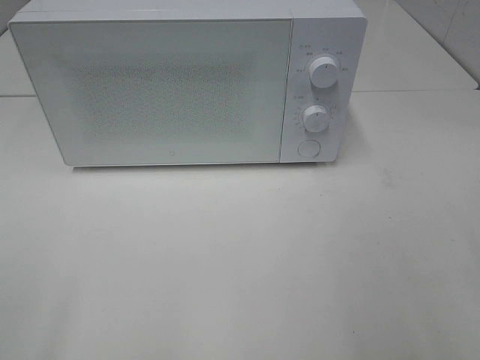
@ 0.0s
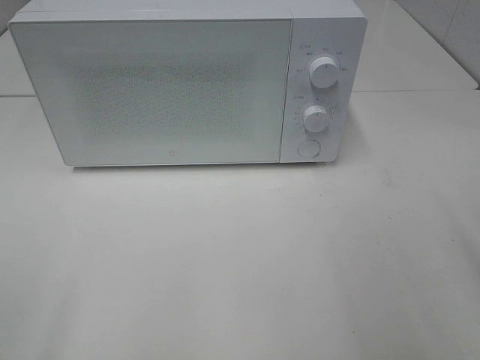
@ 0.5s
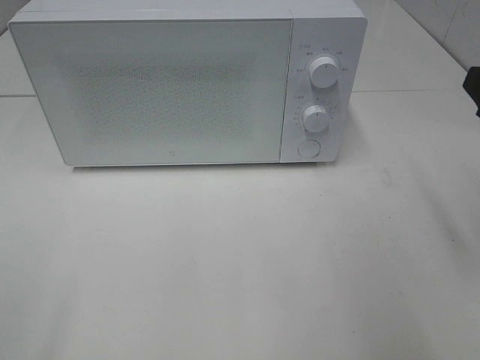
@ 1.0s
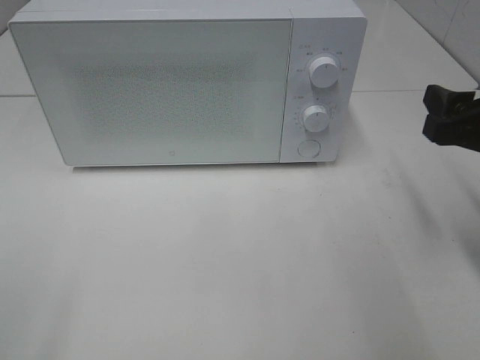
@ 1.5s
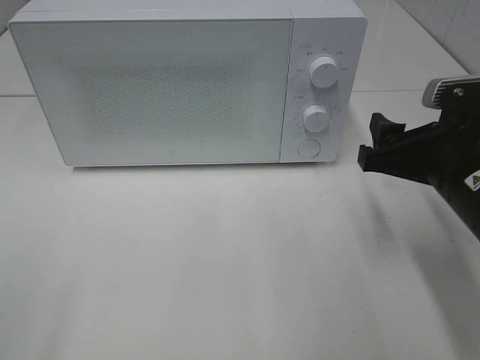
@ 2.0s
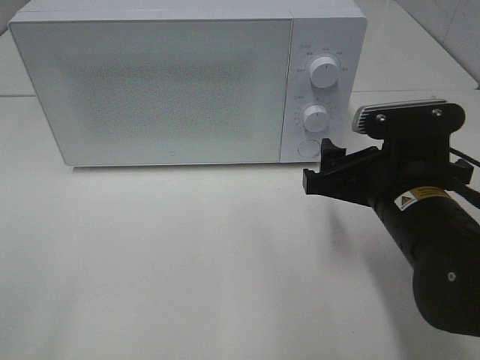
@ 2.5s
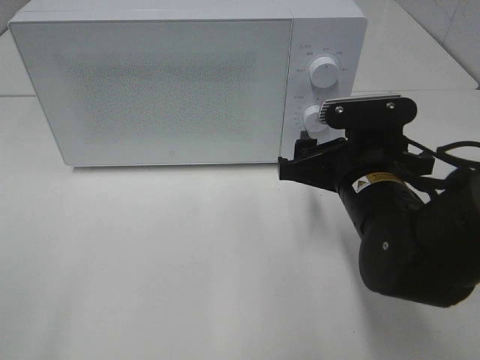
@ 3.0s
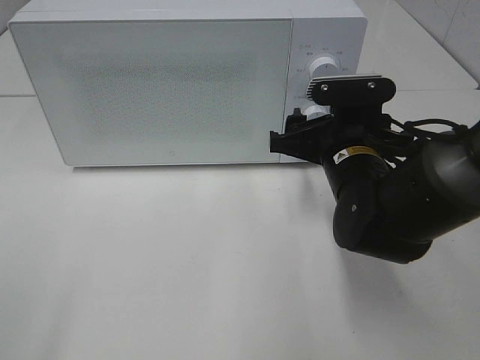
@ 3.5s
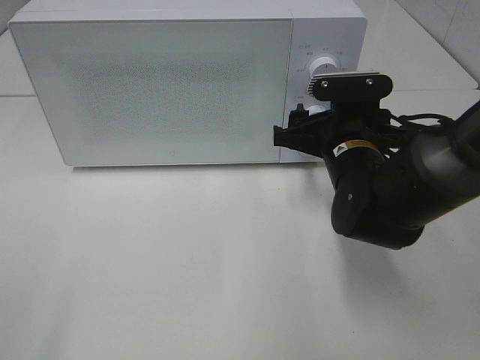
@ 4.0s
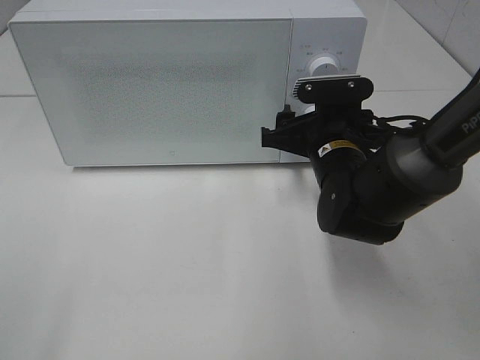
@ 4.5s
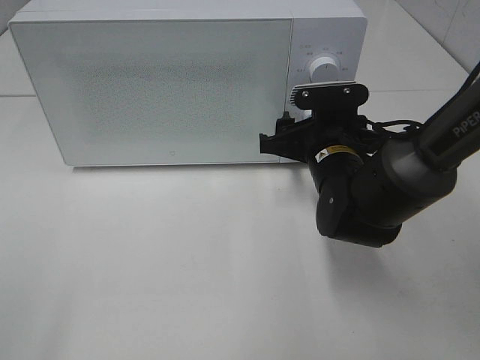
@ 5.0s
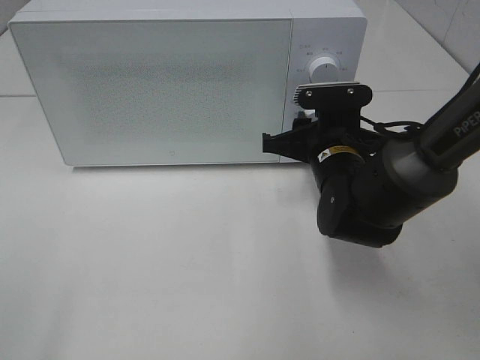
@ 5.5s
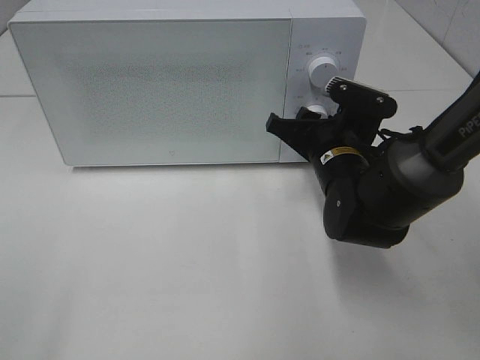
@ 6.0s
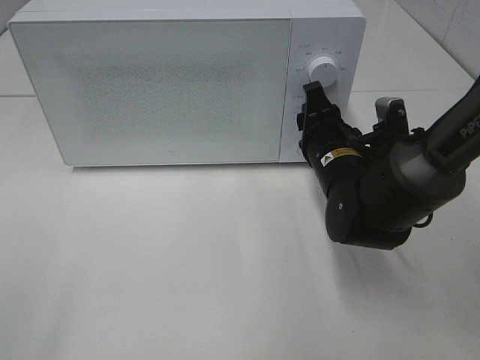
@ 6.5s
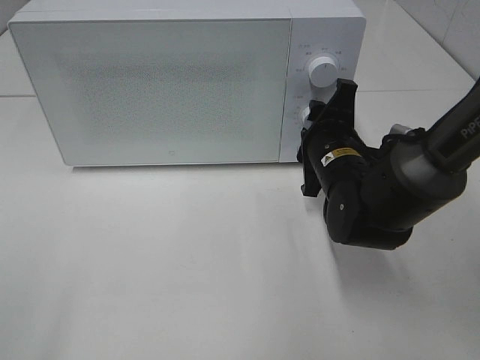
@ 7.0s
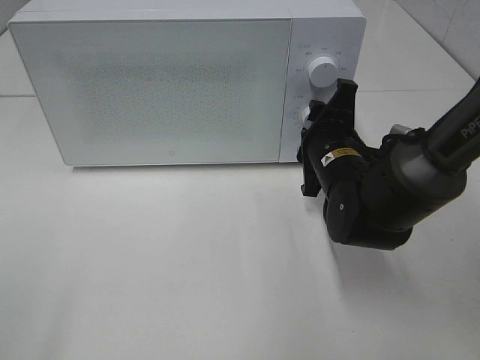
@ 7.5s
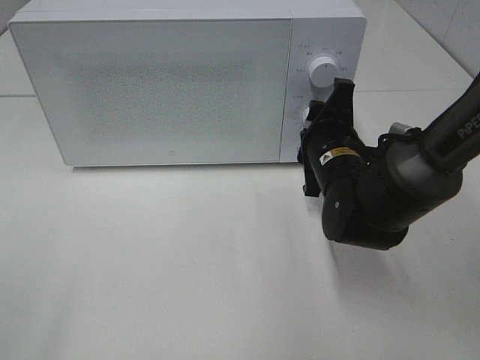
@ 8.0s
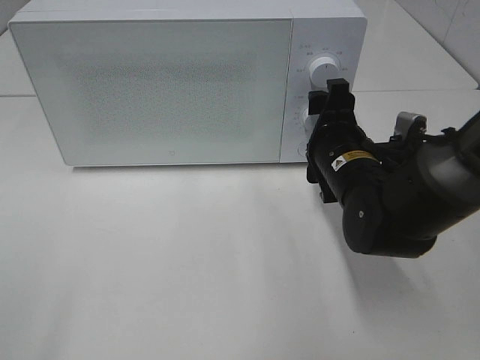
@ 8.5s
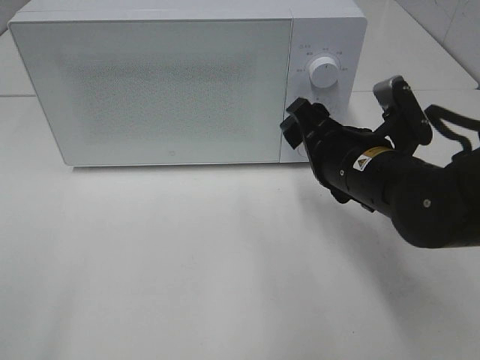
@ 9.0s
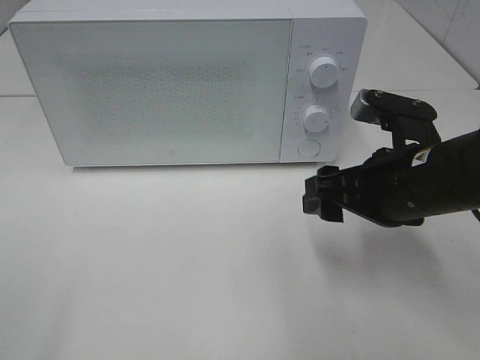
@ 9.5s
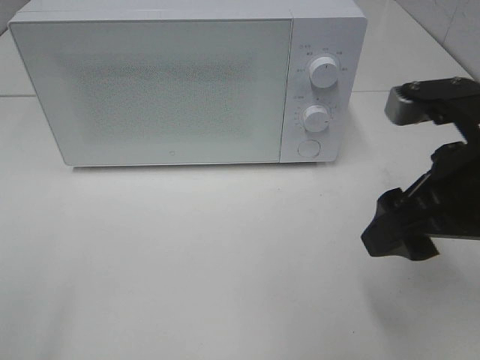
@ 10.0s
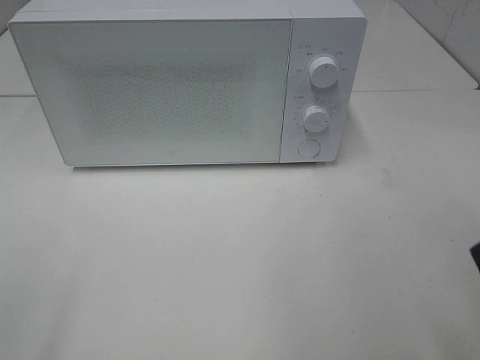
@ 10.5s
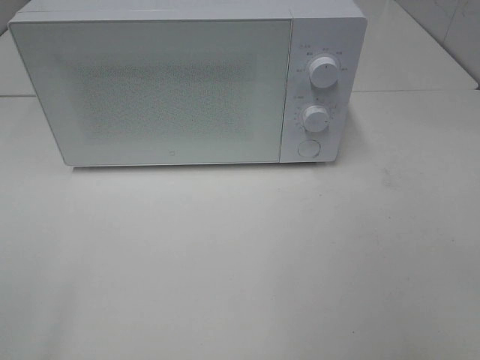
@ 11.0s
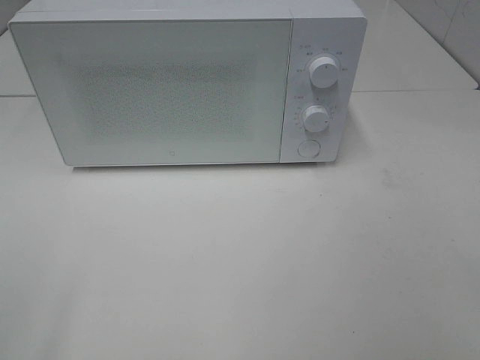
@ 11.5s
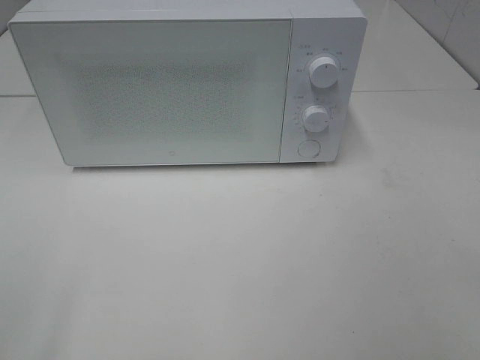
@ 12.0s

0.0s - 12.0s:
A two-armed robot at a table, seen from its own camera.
Task of the whole recording: Heat the burger.
Step, 0.0s - 8.0s: Right hand: twist timer button.
0.0s - 2.0s: The right gripper goes approximately 20 cm forward, downward and to the left.
2.0s - 4.0s: The right gripper heads forward and to the left, covering roughly 10 cm.
4.0s - 6.0s: The right gripper closes up.
8.0s - 10.0s: The right gripper goes approximately 20 cm backward, upward and to the right.
10.0s - 12.0s: The right gripper shifts about 20 cm backward and to the right.

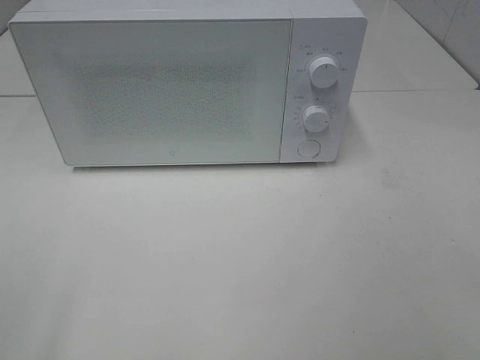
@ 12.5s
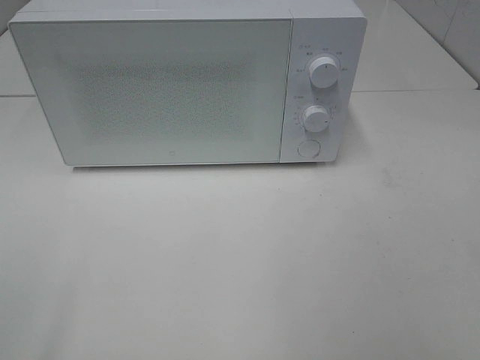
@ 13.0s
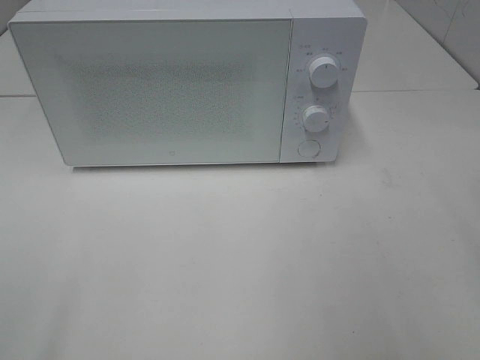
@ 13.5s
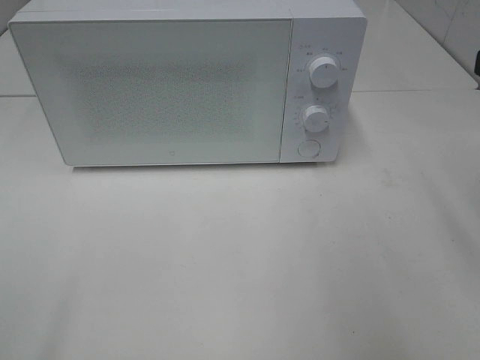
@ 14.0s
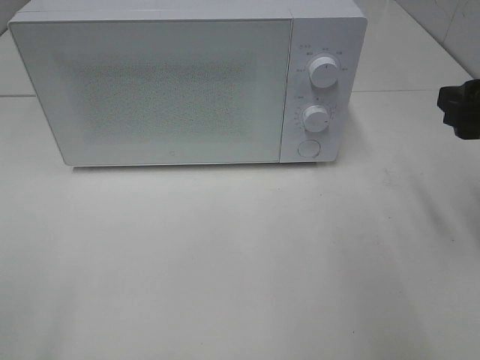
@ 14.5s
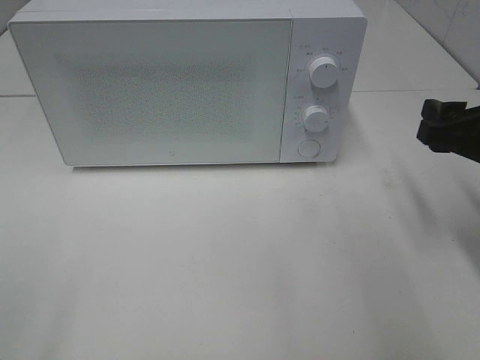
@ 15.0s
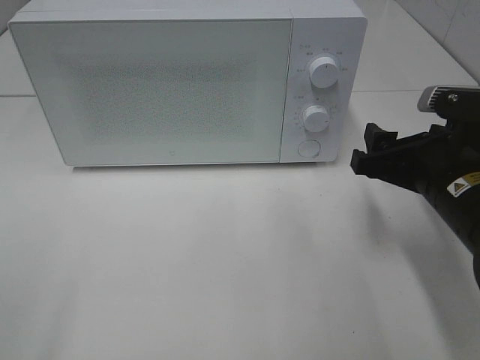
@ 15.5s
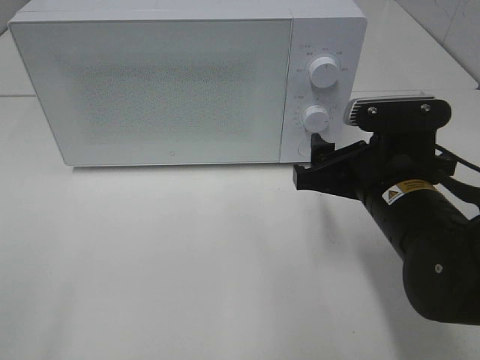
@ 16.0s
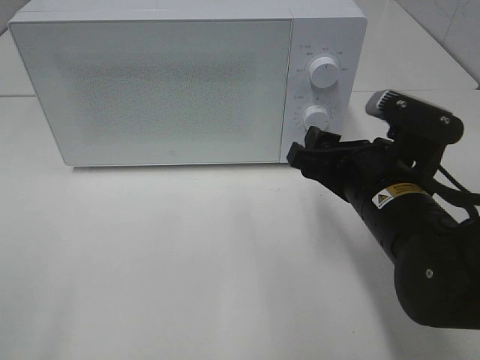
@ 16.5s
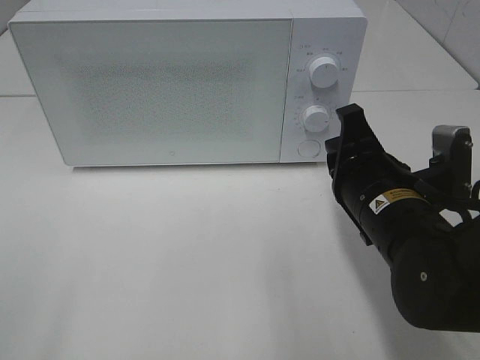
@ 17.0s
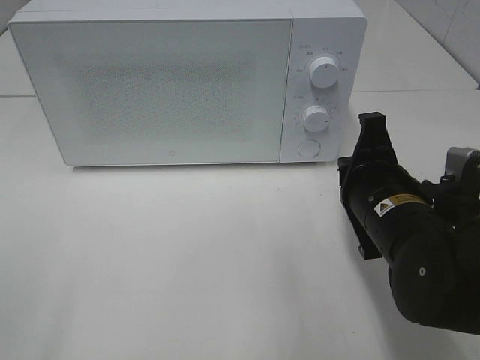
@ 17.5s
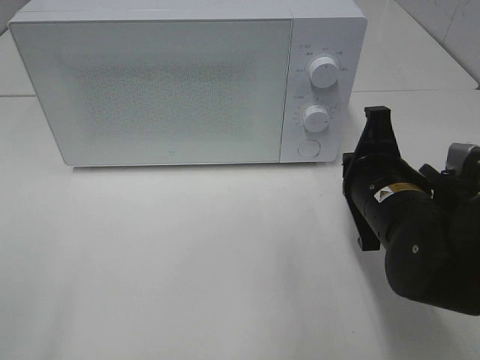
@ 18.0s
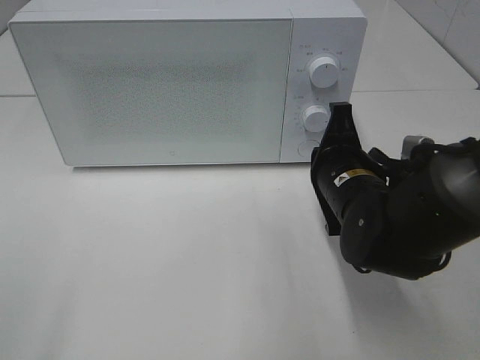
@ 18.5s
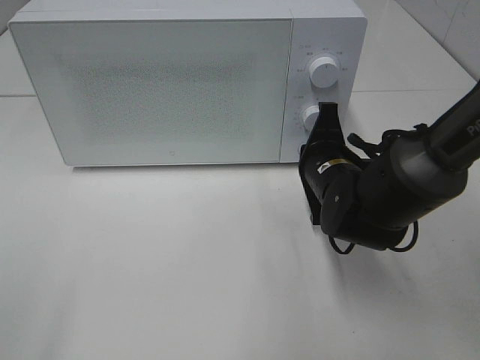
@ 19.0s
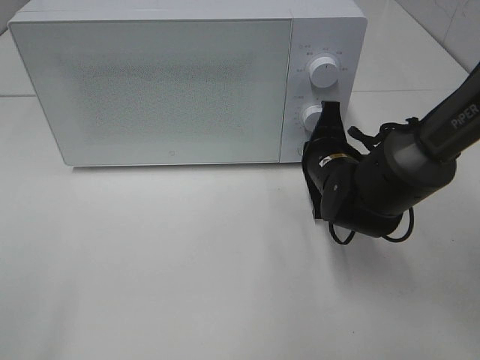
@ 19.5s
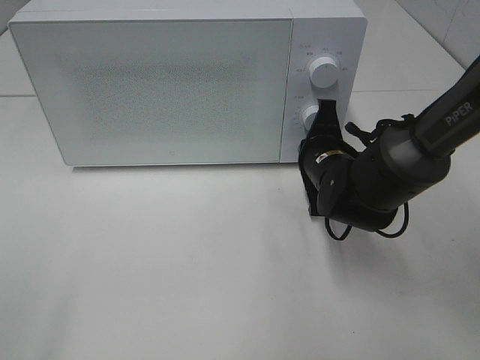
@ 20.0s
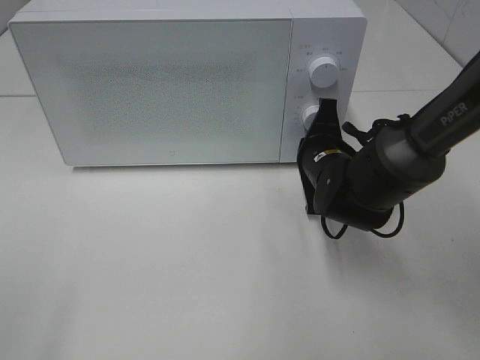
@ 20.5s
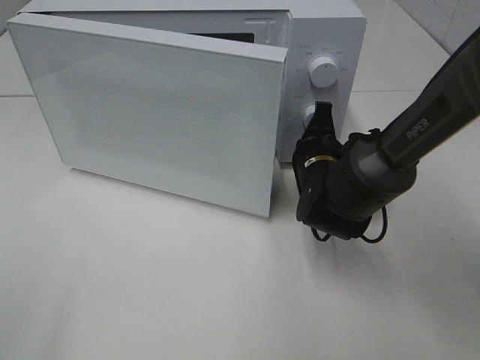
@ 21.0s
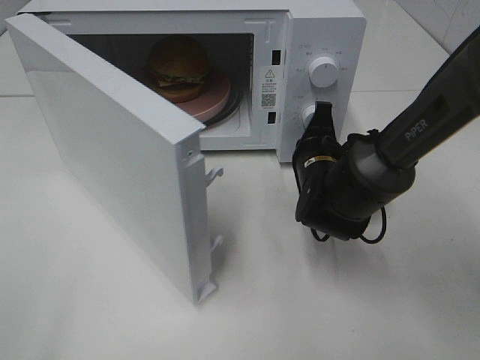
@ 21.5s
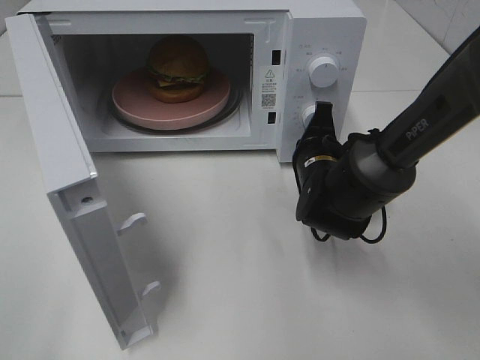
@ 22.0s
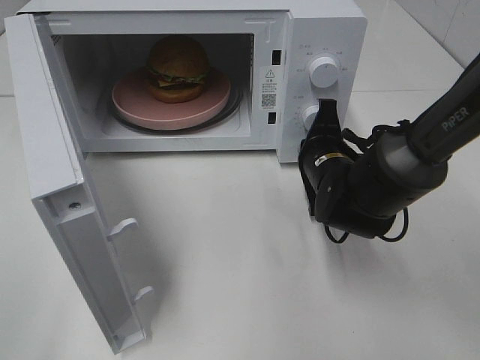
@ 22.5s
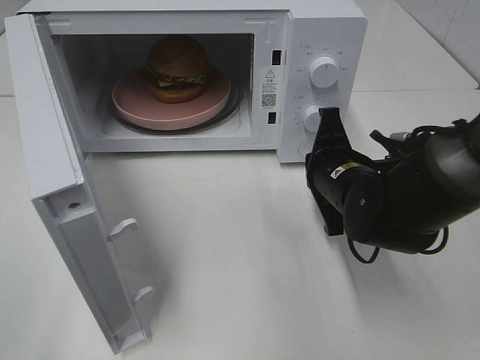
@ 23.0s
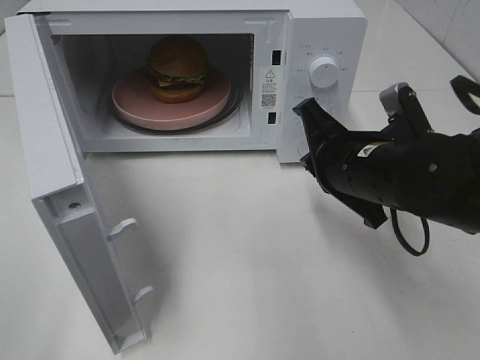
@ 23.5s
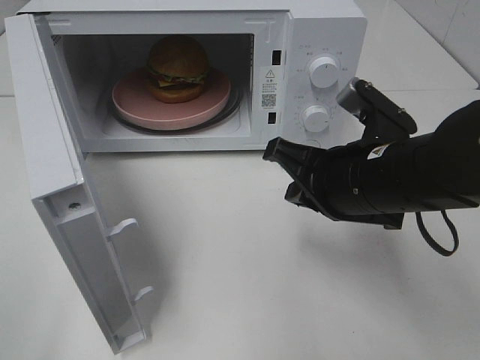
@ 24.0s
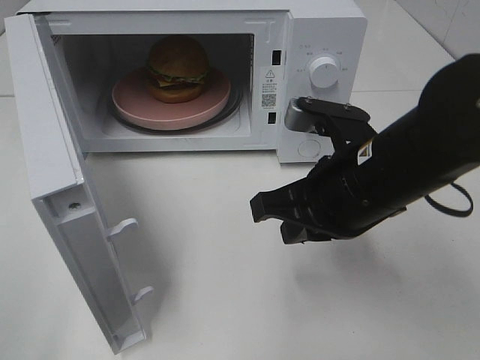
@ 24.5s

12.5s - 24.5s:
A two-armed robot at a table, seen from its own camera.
Task of the whole recording: Heat the burger.
Step, 12.5s - 22.5s: Right hand: press the switch.
12.5s - 14.5s: The right gripper moves forward, about 20 cm.
14.5s - 16.5s: The right gripper shifts some 15 cm to the left and downward.
16.5s - 18.5s: The right gripper travels forward by some 5 cm, and closes.
18.5s - 20.5s: The right gripper moves forward, approximately 5 cm.
22.5s - 24.5s: The right gripper moves backward and upward, some 15 cm.

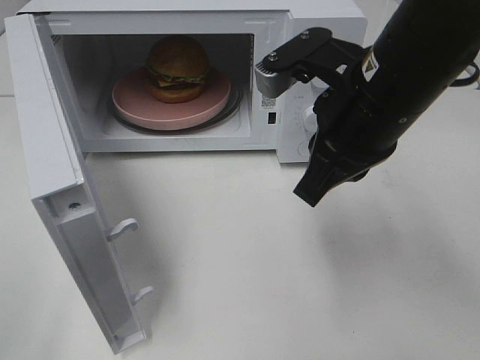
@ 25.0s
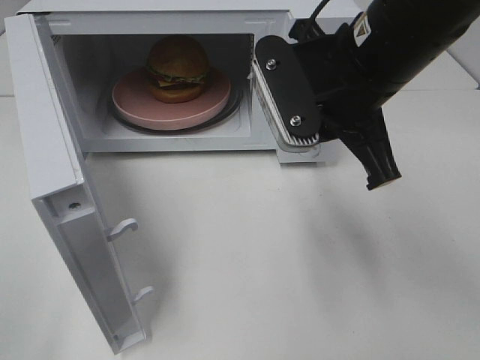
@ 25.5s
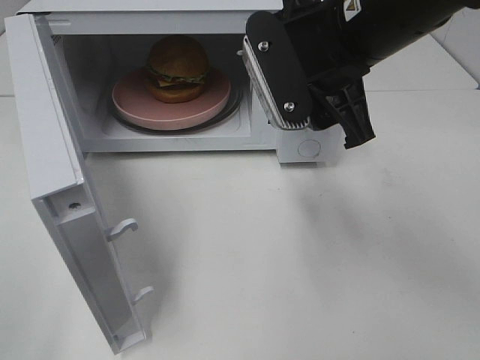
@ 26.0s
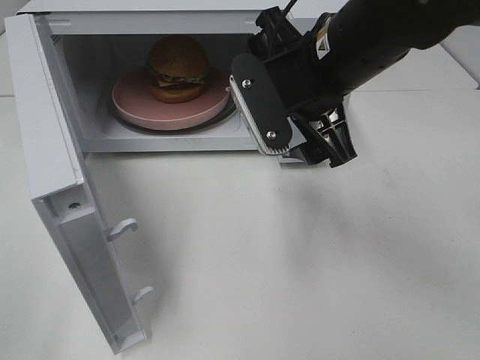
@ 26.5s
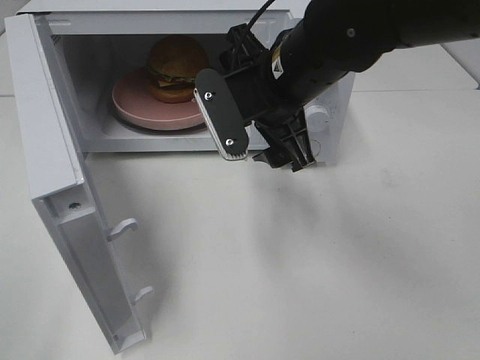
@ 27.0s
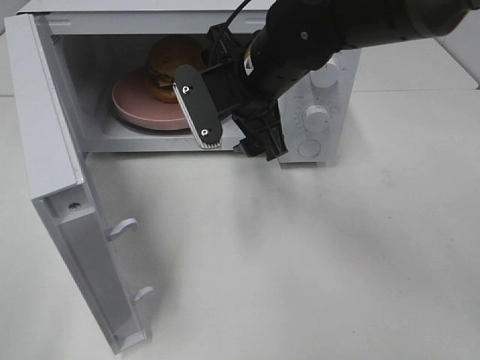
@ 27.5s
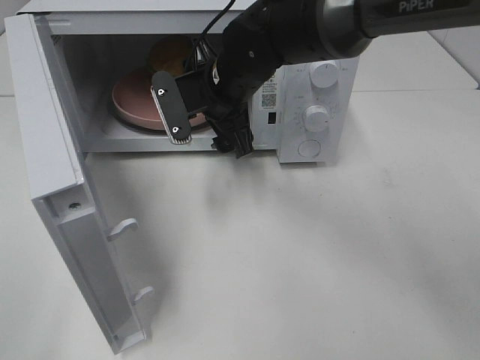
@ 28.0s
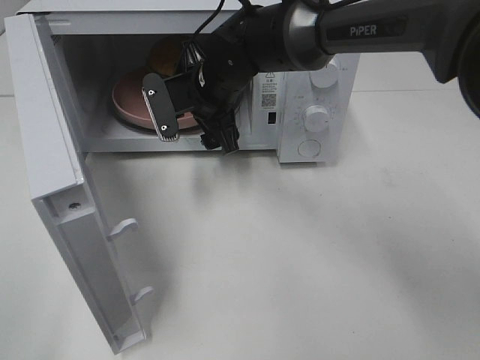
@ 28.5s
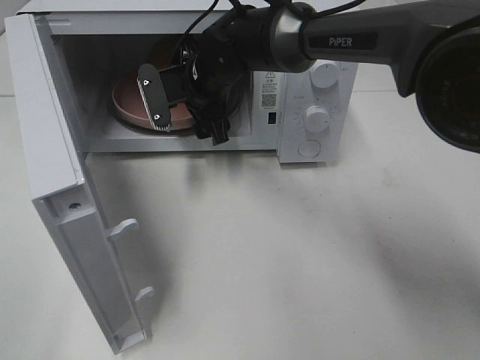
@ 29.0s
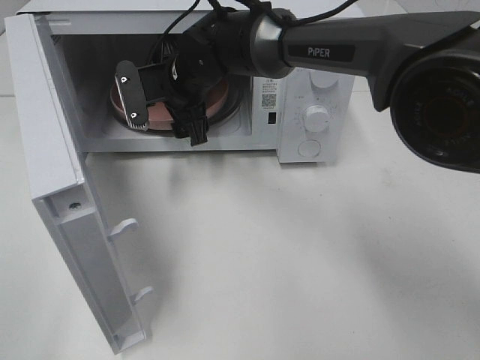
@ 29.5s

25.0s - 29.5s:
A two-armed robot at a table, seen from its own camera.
Task of the whole recording: Heat the burger.
25.0s - 27.0s: The right gripper moves forward and to the left, roughly 10 cm, and opens its fingers.
27.0s - 29.5s: The right gripper moves forward, to the left and downward, approximately 15 cm.
